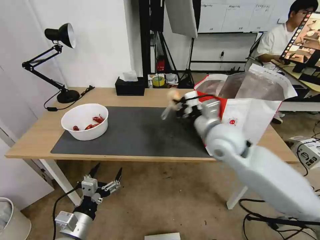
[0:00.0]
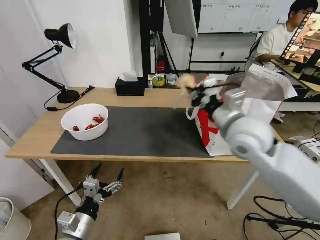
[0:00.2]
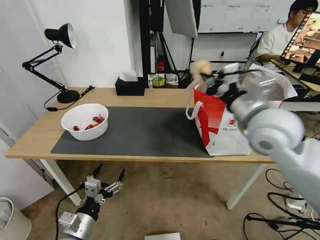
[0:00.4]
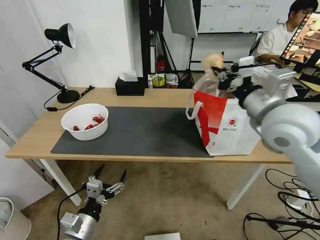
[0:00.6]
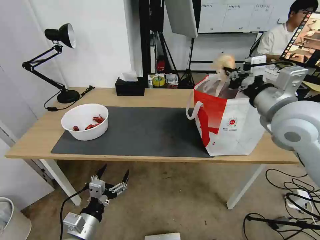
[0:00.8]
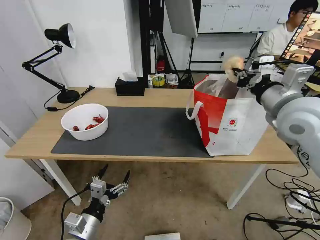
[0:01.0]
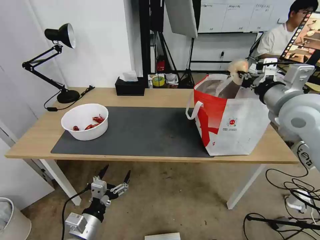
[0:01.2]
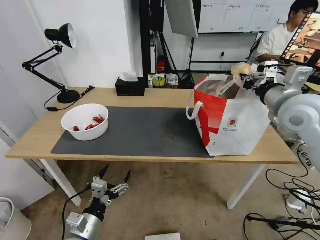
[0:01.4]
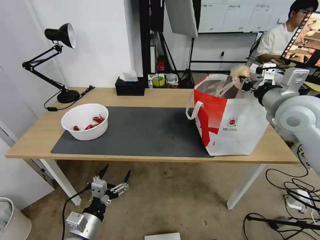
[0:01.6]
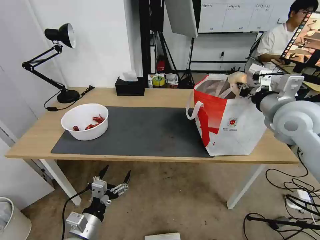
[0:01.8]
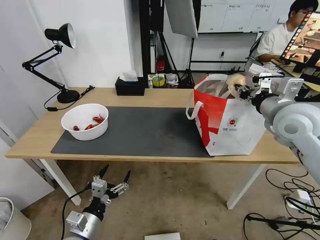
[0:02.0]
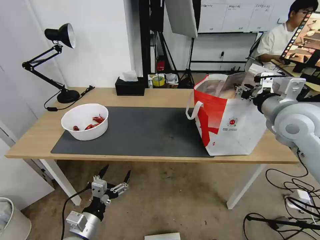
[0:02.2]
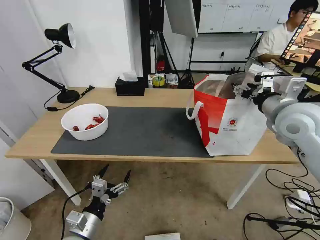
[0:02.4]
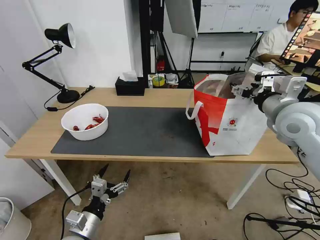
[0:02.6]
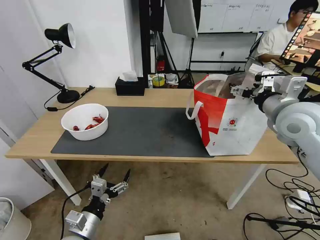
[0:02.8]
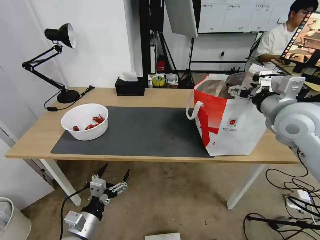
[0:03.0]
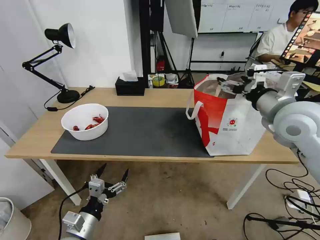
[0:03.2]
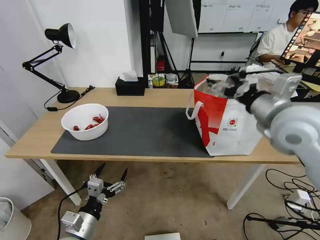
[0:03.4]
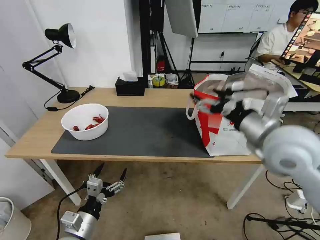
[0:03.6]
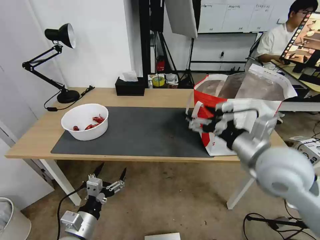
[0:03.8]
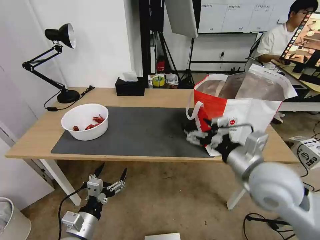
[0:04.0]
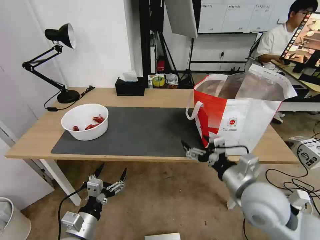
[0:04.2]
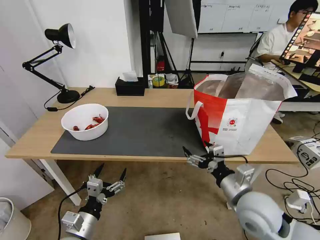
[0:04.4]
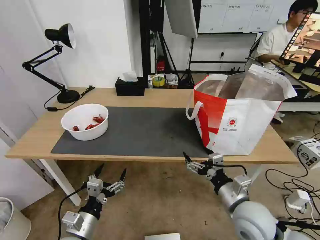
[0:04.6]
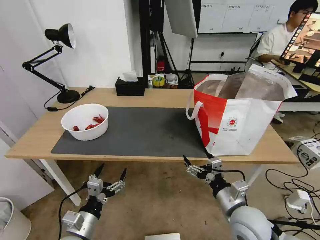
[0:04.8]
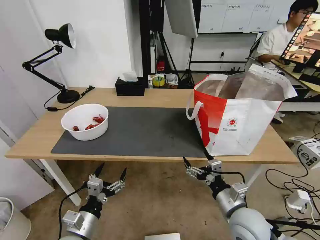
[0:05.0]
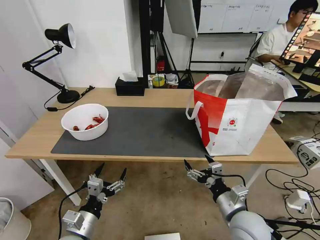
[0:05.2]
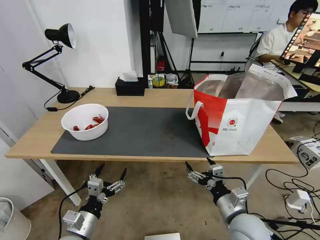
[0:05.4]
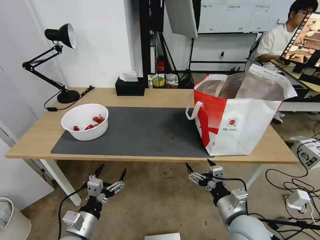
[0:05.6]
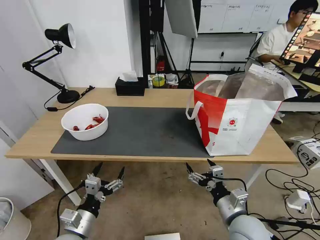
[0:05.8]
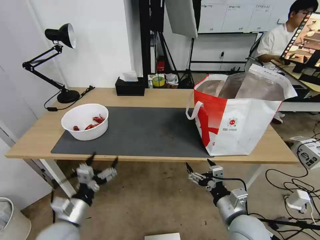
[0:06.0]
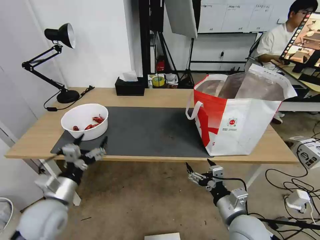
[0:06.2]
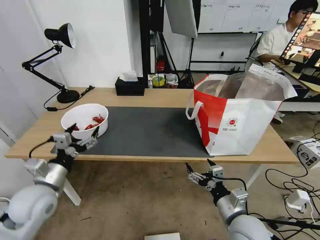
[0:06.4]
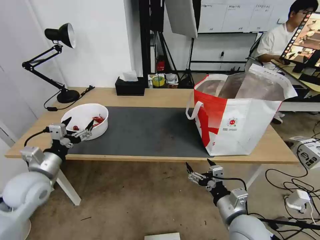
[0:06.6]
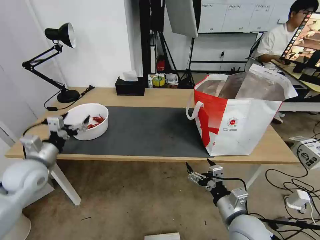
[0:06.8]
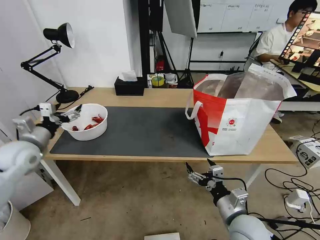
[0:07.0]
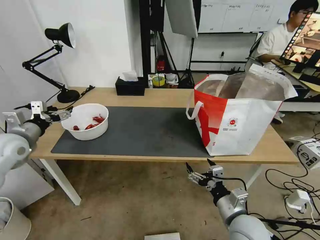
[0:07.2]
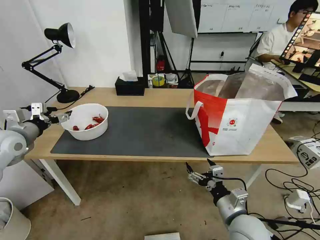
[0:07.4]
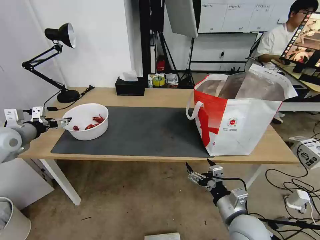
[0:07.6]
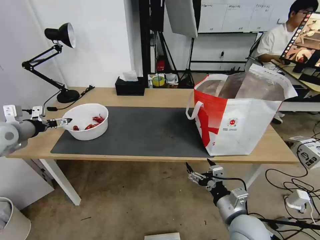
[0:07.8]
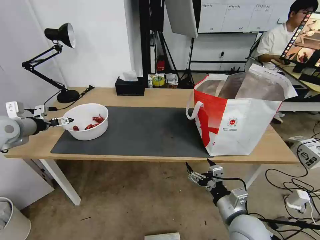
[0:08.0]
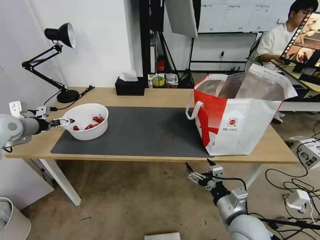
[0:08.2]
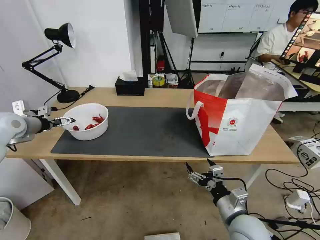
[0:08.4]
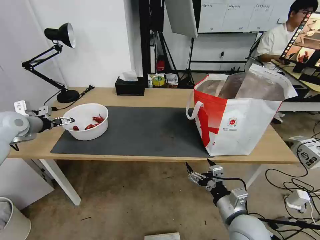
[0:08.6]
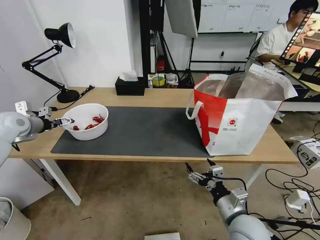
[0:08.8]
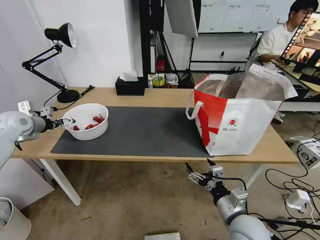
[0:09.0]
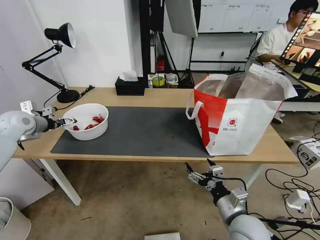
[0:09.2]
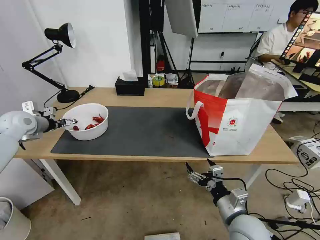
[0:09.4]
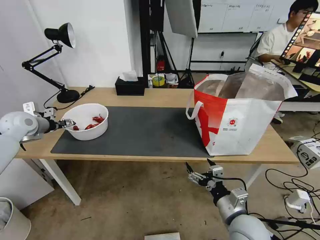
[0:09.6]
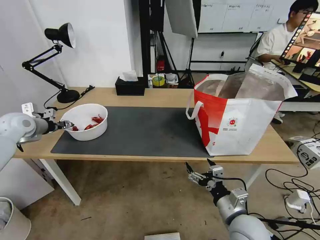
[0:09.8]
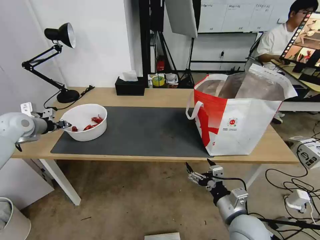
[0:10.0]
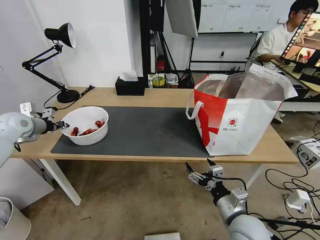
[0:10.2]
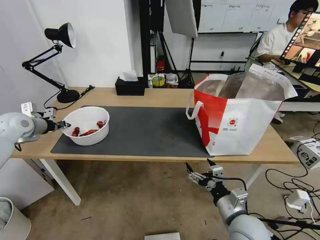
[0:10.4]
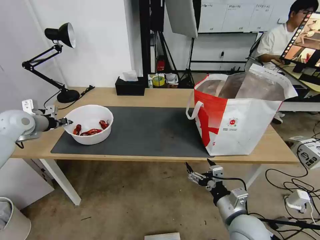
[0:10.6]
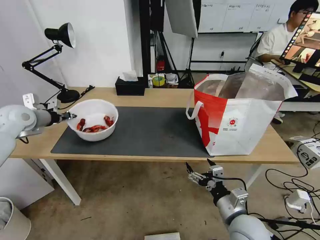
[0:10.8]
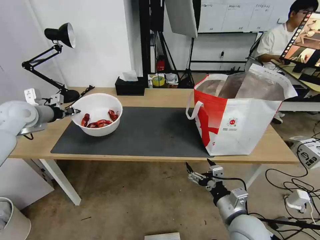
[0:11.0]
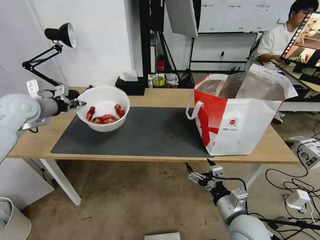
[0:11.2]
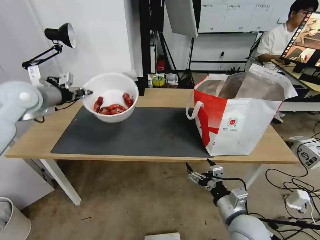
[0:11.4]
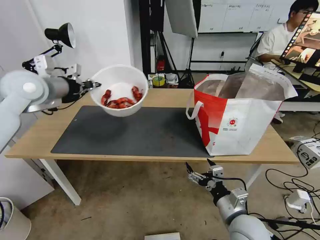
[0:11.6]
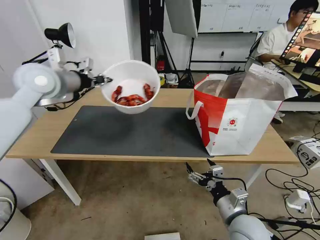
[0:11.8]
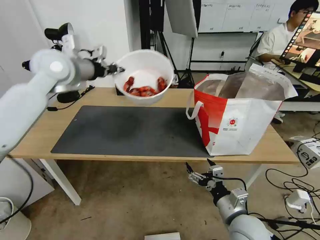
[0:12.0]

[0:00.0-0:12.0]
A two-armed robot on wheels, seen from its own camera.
Task of the whole recording: Pick up the trash from the table and place it into the takeout bag.
0.0 to 1.6 s: The right gripper travels to the right and upward by some 20 cm.
1.6 to 3.0 s: The right gripper opens up.
3.0 to 4.4 s: The right gripper moves downward, backward and to the left, some 25 cm.
4.4 to 6.0 s: The right gripper shifts about 5 cm downward.
6.0 to 7.6 s: The left gripper shifts approximately 35 cm forward, to the left and upward.
7.6 to 9.0 s: The left gripper goes some 5 cm forward.
9.0 to 10.4 s: The left gripper closes.
10.4 to 12.0 s: The left gripper heads to the right and upward, covering some 25 cm.

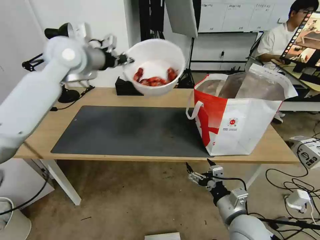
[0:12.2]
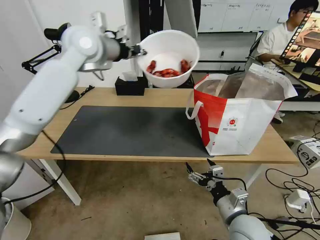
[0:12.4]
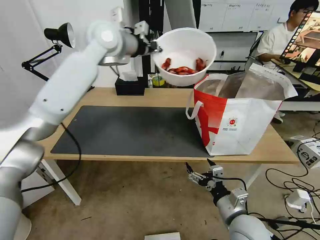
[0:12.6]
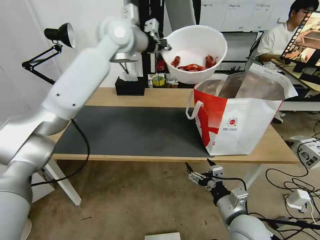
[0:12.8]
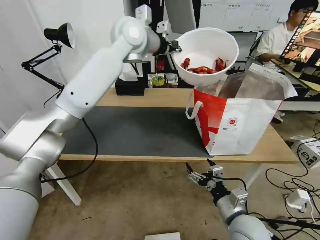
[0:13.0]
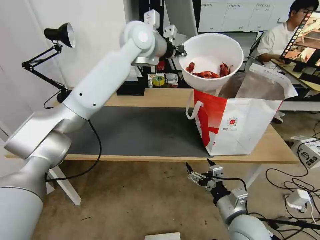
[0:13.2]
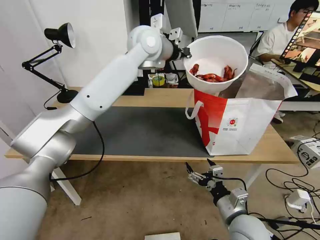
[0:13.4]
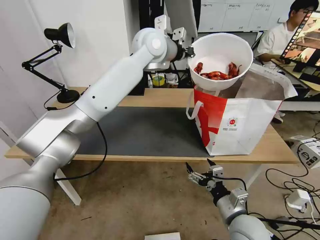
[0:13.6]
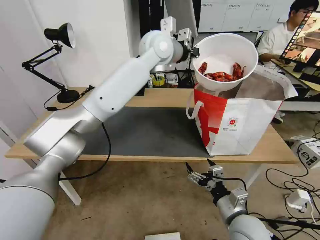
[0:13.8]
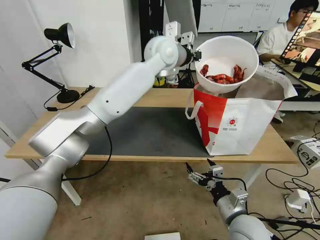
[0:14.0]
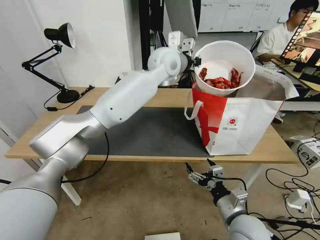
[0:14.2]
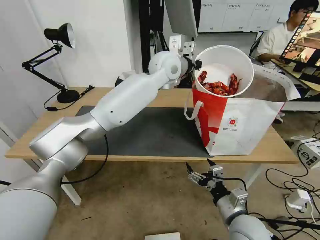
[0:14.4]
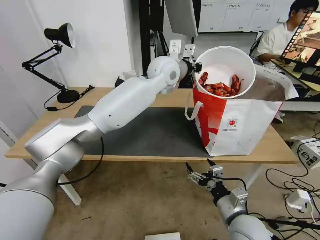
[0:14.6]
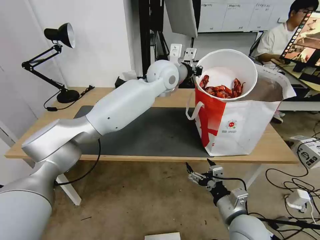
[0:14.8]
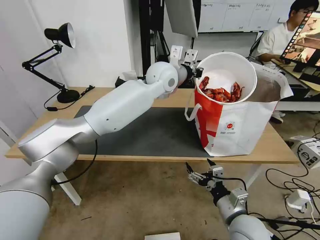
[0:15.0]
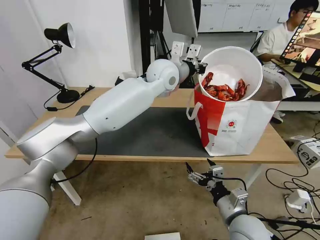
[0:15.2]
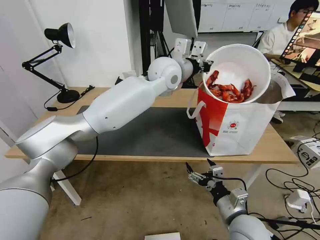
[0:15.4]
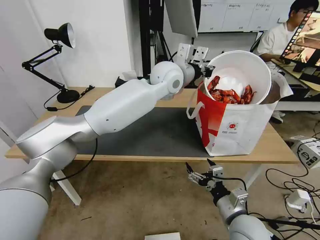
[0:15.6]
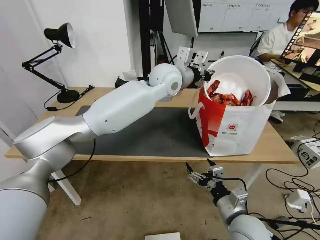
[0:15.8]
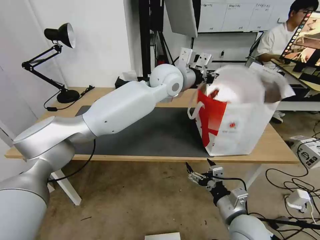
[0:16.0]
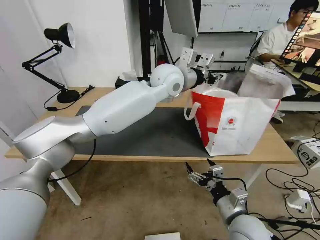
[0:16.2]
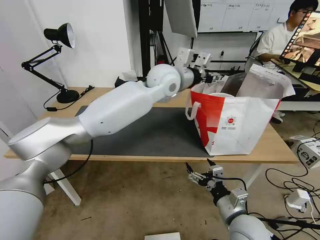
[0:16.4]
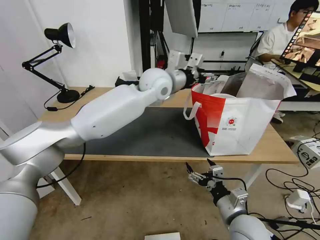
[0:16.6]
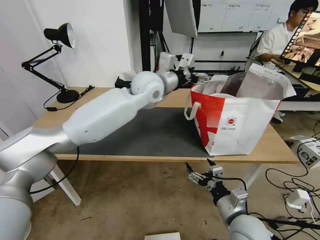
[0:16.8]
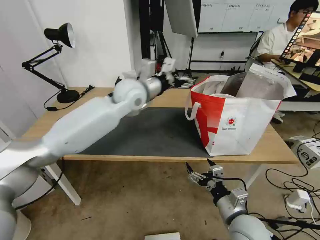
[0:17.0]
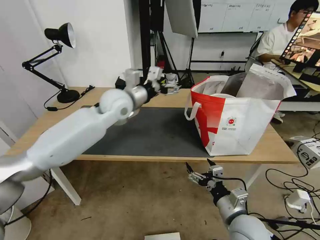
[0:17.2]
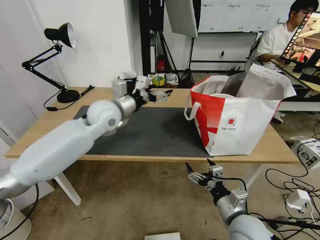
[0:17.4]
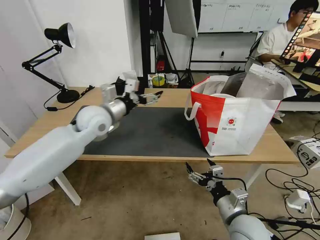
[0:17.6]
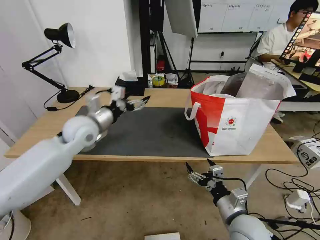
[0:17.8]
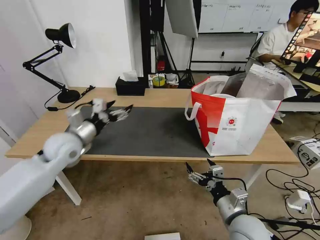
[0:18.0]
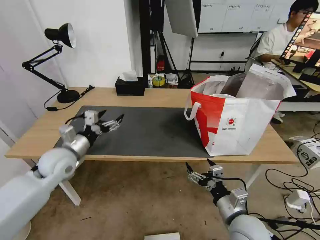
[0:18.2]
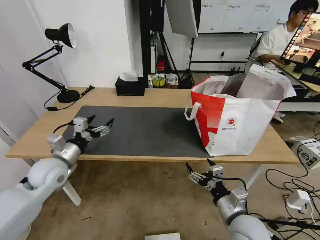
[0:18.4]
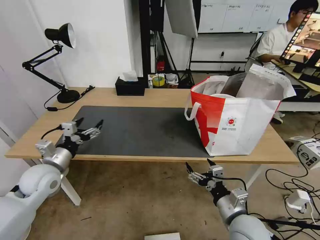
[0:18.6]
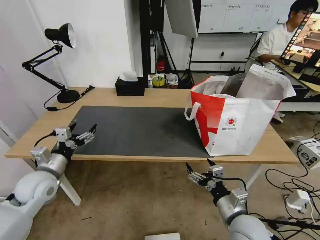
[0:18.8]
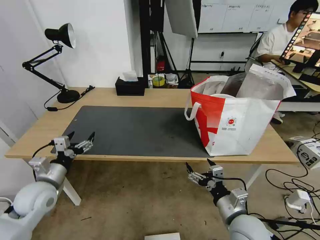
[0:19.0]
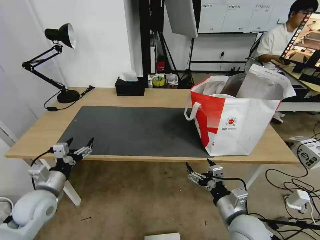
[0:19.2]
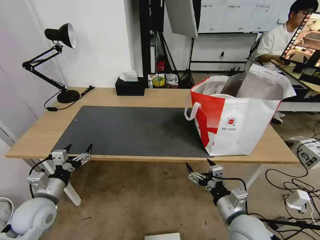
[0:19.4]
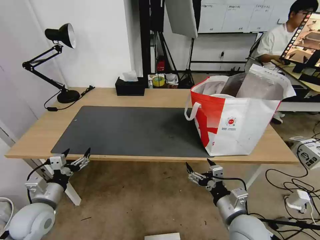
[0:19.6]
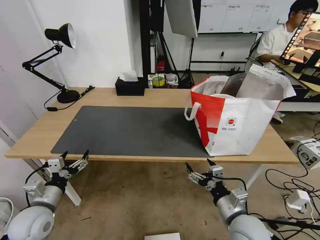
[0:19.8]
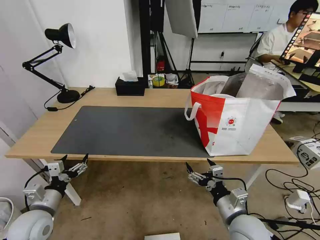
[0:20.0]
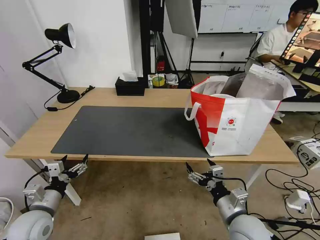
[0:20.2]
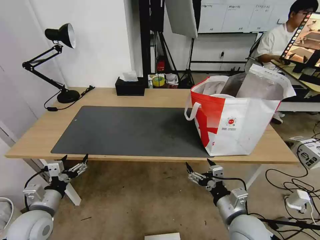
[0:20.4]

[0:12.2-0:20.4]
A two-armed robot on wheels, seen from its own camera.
Task of the whole recording: Pick up the trash from the table and place it into the takeout bag.
12.2 to 13.8 s: The left gripper moves to the right, roughly 20 cm.
13.8 to 15.4 s: The left gripper is displaced downward by some 5 cm.
15.4 to 17.2 s: The left gripper moves to the left and downward, approximately 15 cm, and opens its fingers.
17.2 to 18.8 s: The left gripper heads to the left, backward and downward, covering some 35 cm.
18.8 to 20.4 s: The left gripper is displaced backward and downward by roughly 10 cm.

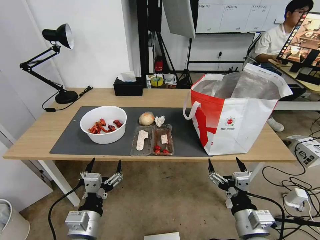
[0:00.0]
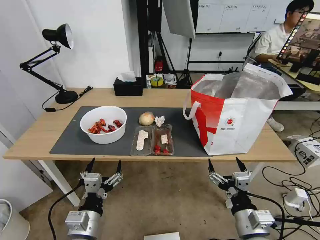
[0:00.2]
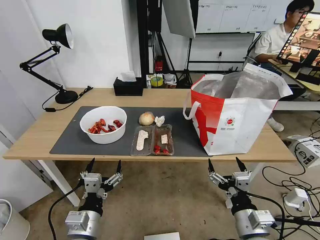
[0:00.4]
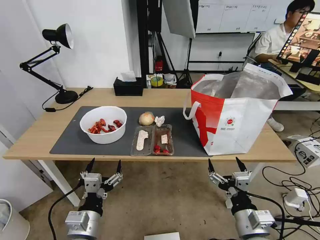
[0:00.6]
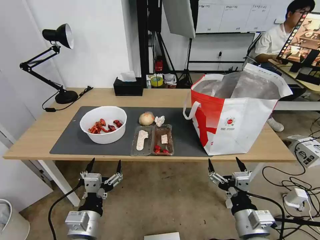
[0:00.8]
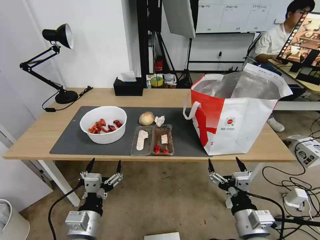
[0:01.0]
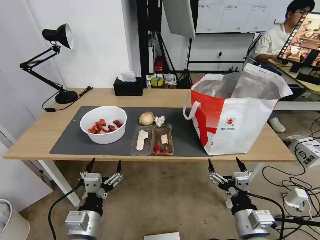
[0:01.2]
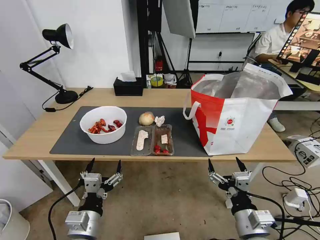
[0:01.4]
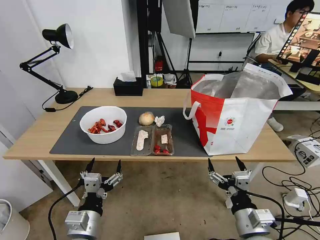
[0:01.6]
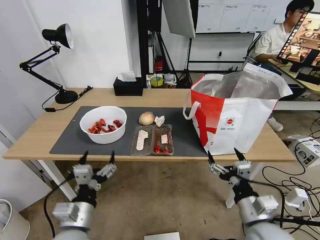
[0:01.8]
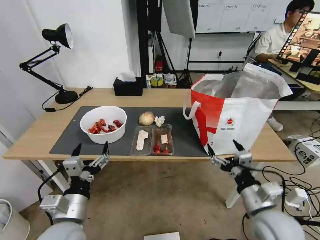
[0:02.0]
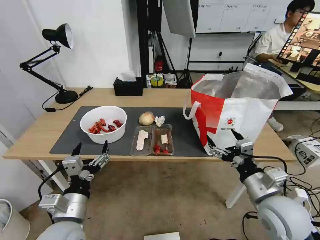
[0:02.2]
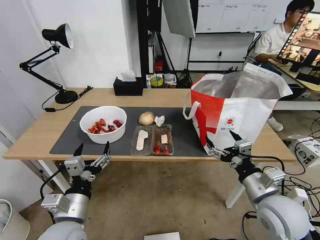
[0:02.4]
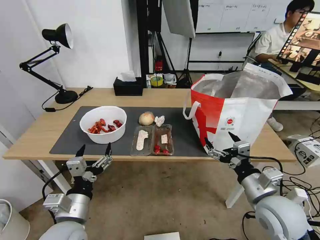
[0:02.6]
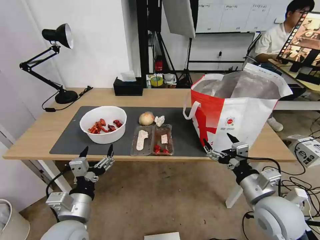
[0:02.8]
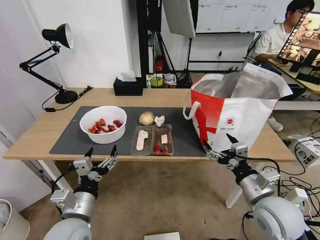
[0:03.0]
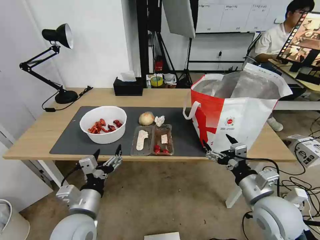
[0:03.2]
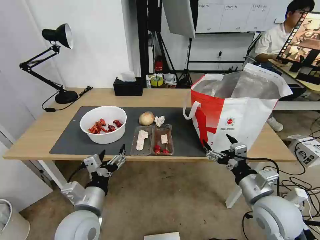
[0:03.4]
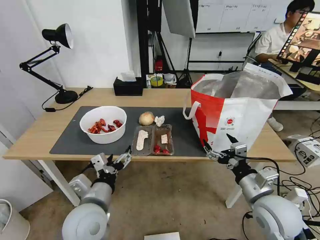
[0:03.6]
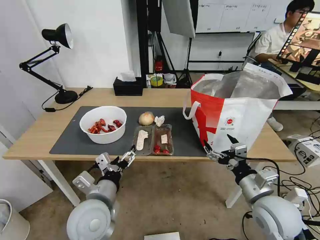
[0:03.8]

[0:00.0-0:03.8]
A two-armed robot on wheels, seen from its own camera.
Task of the whole recording: Pick up the trash from the table and place it into the takeout bag.
1.2 to 2.6 s: The right gripper heads forward and upward, covering about 10 cm. The left gripper ends up roughly 5 cm from where it was.
2.6 to 3.8 s: The left gripper travels to the right by some 5 cm.
